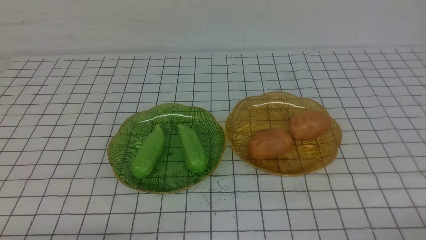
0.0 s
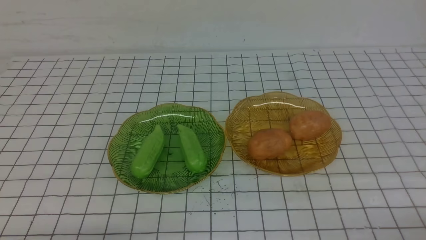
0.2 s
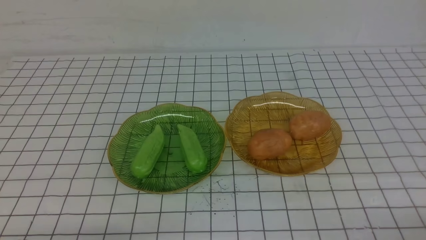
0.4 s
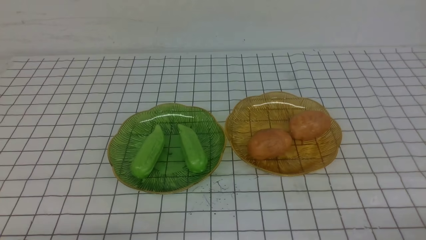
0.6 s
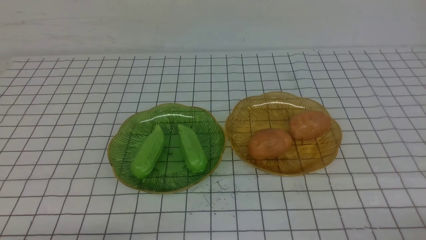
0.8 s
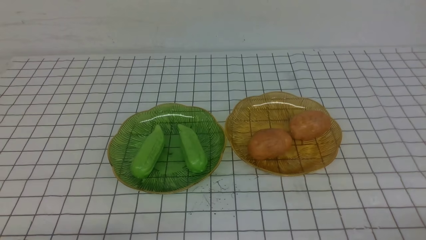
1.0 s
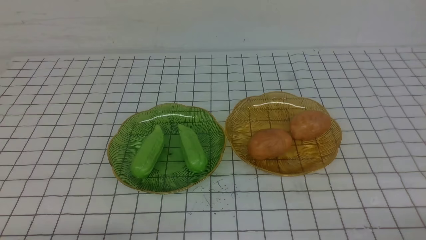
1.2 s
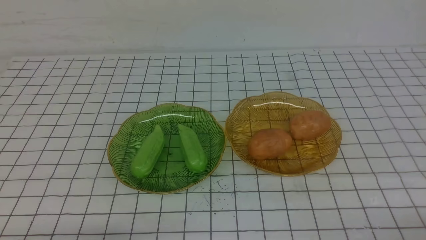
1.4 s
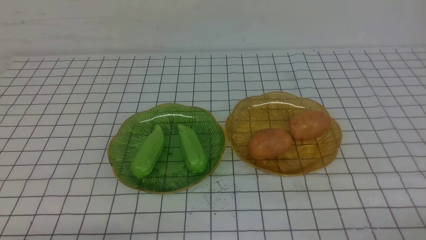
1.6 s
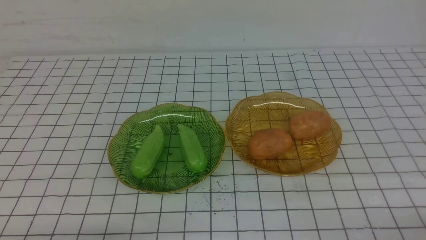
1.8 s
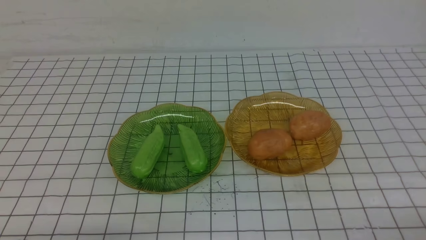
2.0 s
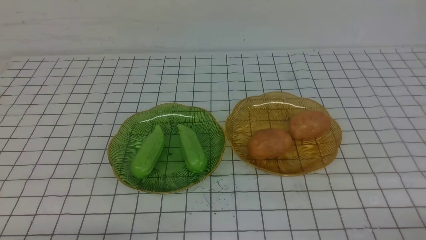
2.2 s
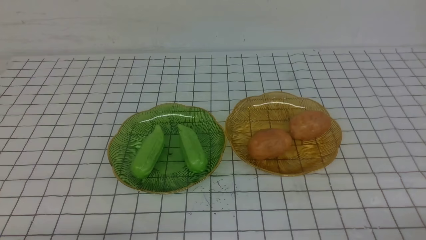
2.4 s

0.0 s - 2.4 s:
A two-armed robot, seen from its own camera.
0.0 s - 2.4 s: Both grippers stay put.
